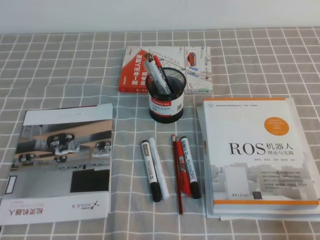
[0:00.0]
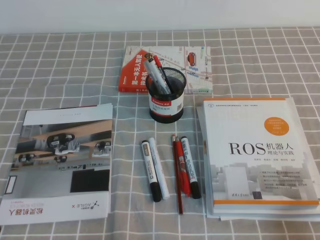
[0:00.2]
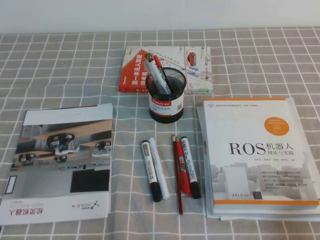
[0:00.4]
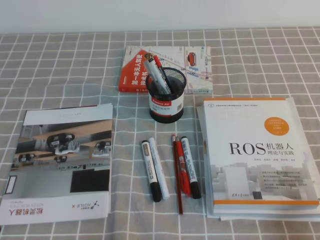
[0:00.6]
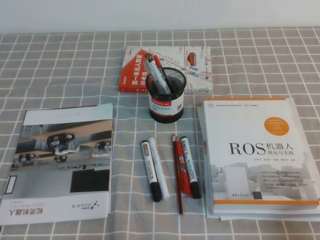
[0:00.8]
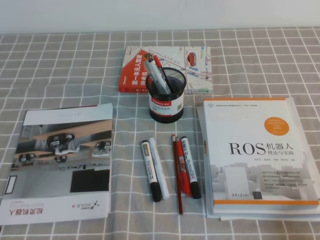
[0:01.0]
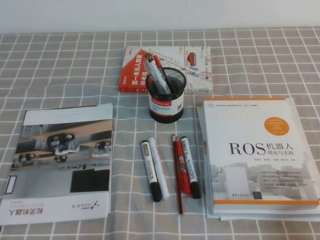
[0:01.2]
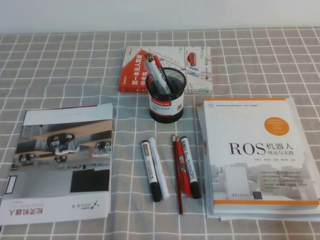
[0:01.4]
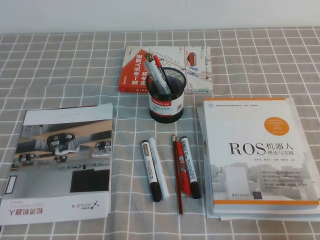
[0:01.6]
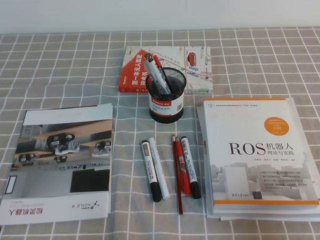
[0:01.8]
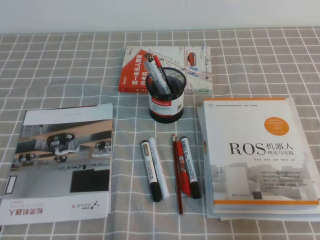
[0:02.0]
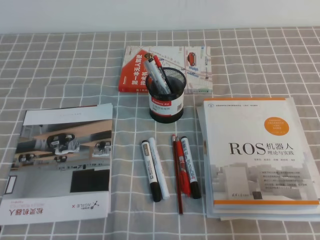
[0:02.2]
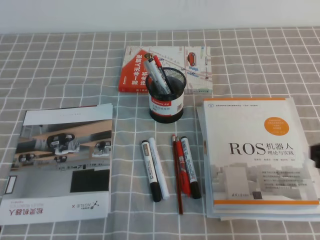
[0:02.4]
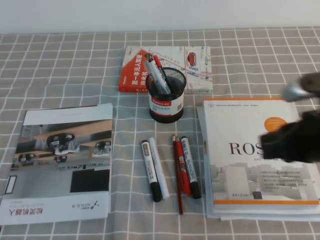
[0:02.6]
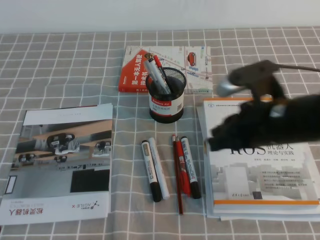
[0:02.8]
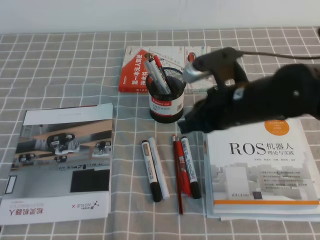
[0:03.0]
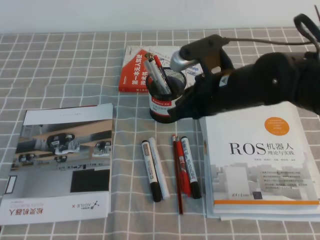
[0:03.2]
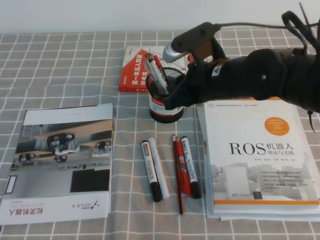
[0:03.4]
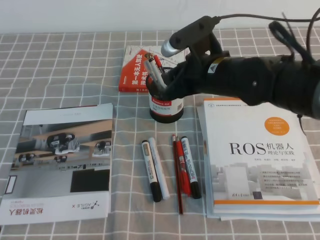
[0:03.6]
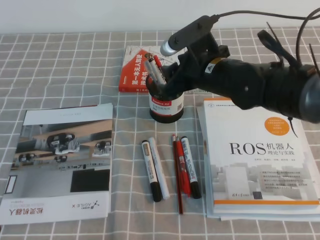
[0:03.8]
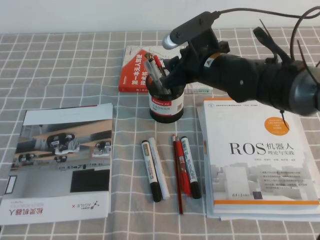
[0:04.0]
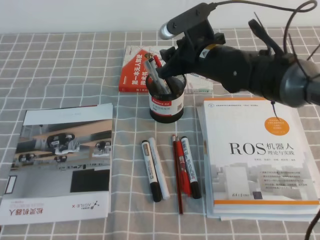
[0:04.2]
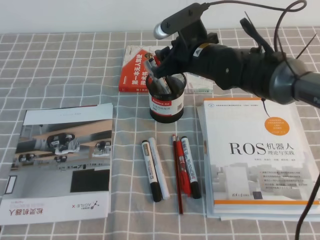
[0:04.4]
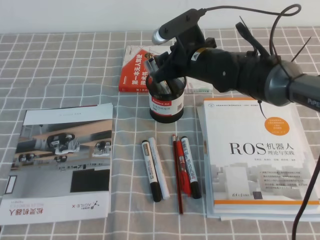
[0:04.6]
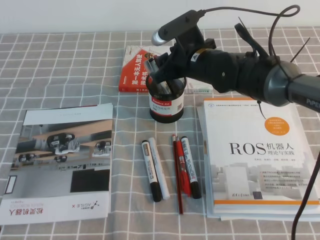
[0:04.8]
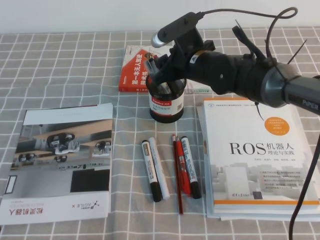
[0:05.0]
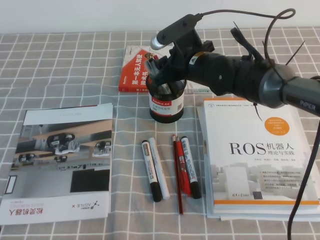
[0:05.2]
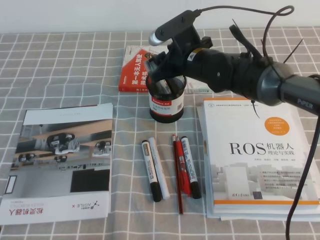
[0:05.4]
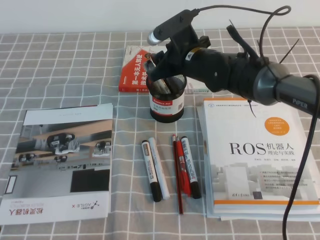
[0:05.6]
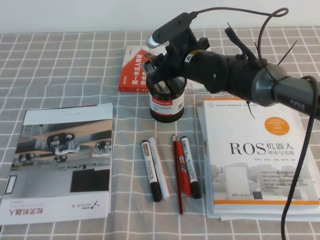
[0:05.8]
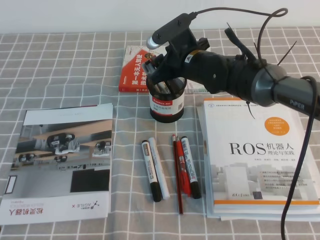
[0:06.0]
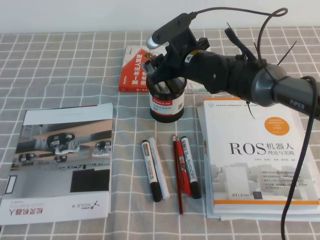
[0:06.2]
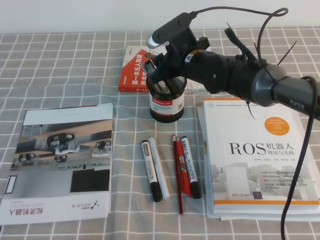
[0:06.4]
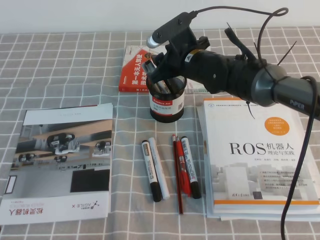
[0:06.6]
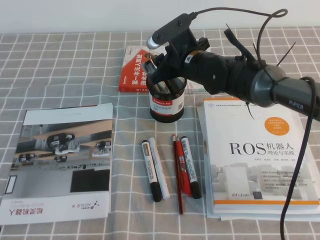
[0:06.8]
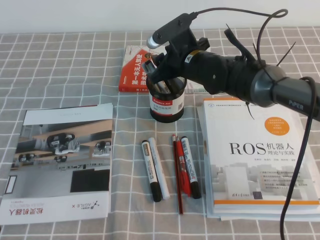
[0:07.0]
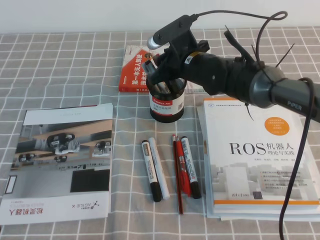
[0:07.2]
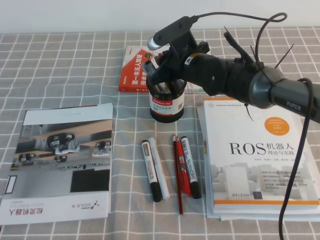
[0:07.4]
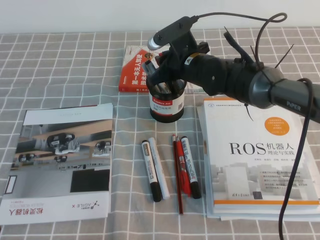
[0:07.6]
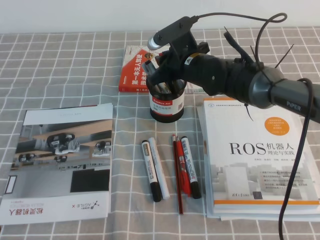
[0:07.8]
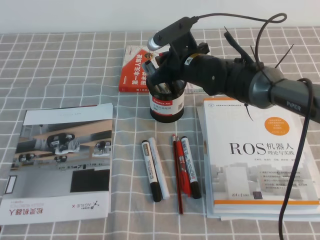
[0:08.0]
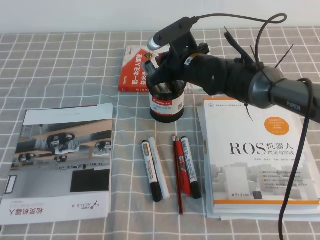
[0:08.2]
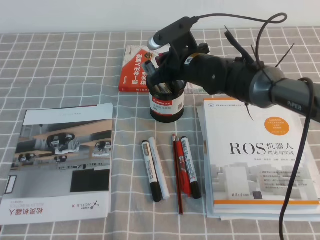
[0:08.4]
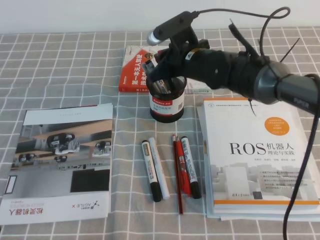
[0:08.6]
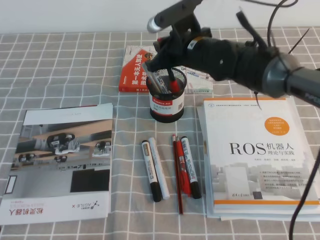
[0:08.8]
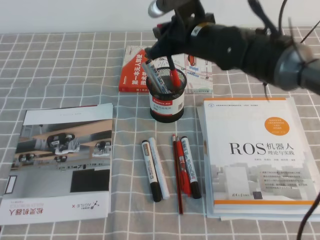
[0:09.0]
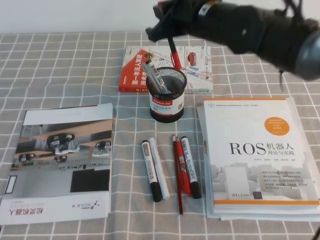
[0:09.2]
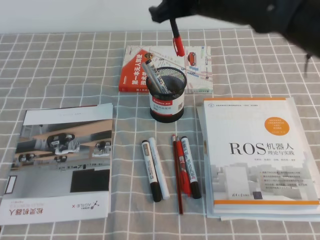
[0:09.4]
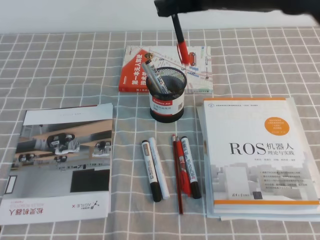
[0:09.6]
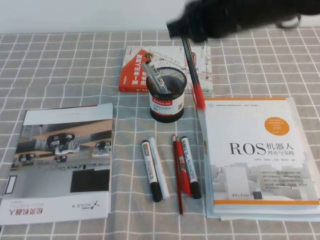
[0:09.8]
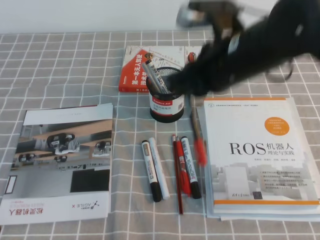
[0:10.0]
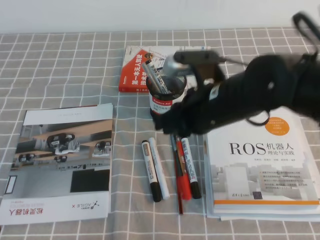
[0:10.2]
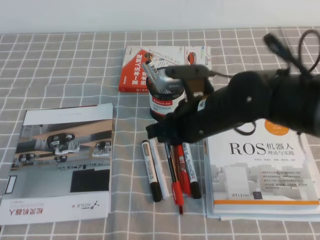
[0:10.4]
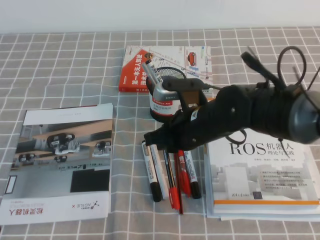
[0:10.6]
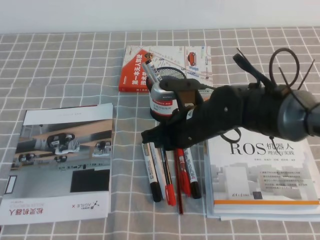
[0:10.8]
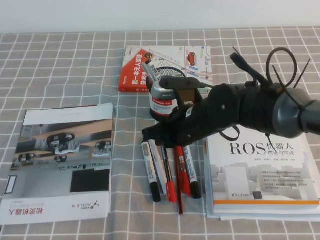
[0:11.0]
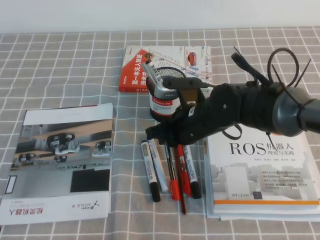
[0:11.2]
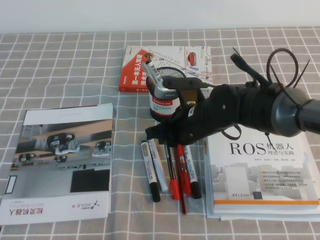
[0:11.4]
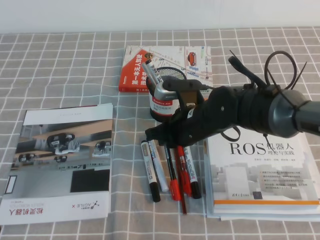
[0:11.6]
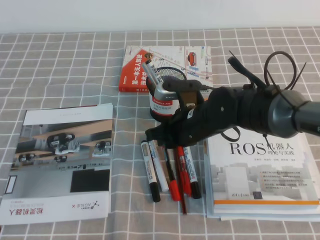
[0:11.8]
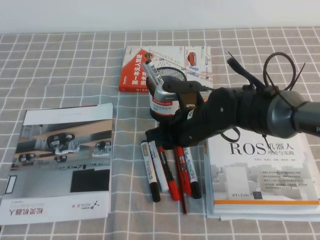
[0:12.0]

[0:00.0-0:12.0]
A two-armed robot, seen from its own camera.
0:01.6 to 0:03.0: The right gripper travels forward and to the left by about 25 cm.
0:03.0 to 0:04.4: The right gripper goes approximately 15 cm forward and to the left, and opens up.
0:04.4 to 0:06.0: There are only small adjustments of the grippers.
0:06.0 to 0:07.6: The right gripper closes.
0:07.6 to 0:09.0: The right gripper heads upward, covering about 5 cm.
0:09.0 to 0:10.4: The right gripper moves backward, roughly 15 cm.
0:10.4 to 0:12.0: The right gripper travels downward by roughly 10 cm, and opens.

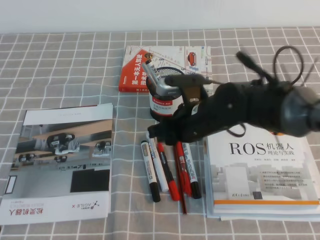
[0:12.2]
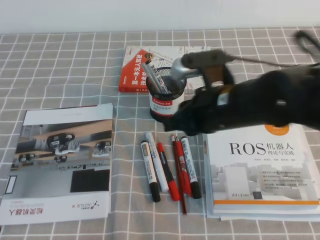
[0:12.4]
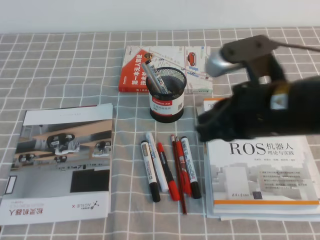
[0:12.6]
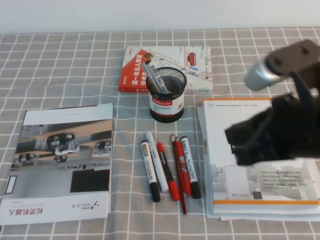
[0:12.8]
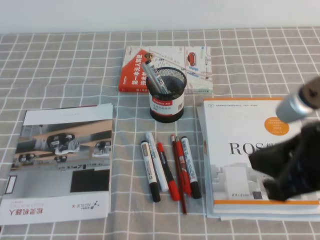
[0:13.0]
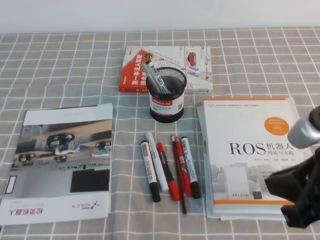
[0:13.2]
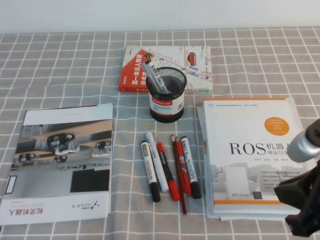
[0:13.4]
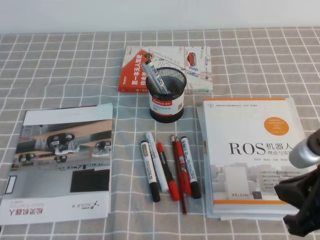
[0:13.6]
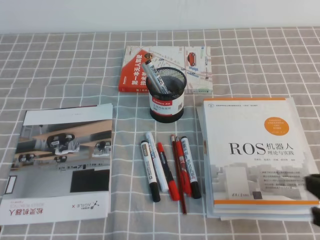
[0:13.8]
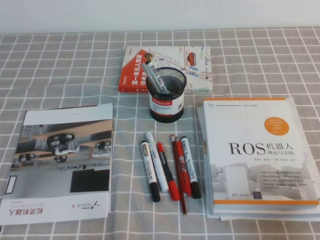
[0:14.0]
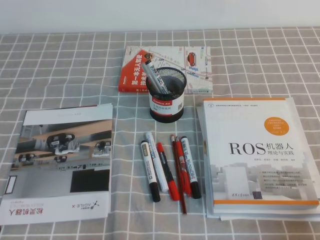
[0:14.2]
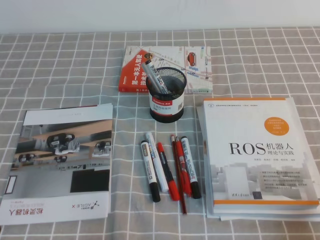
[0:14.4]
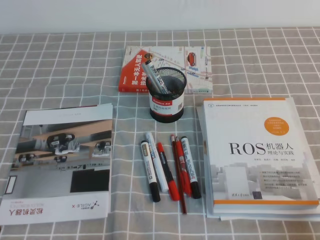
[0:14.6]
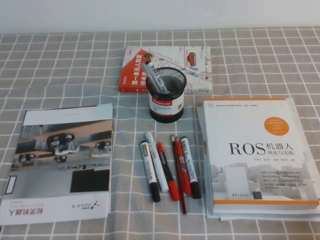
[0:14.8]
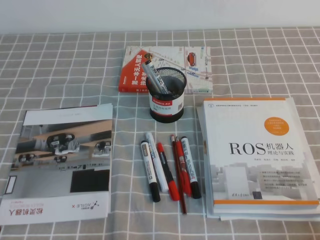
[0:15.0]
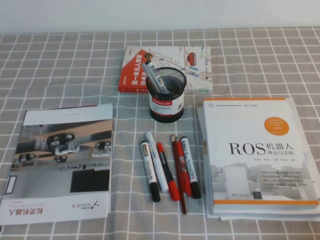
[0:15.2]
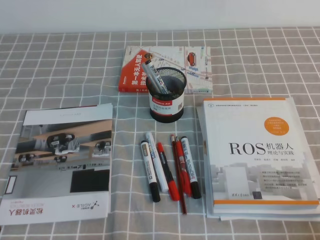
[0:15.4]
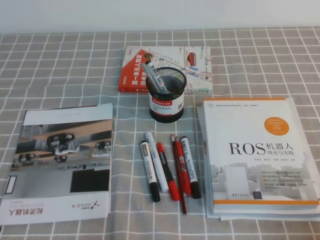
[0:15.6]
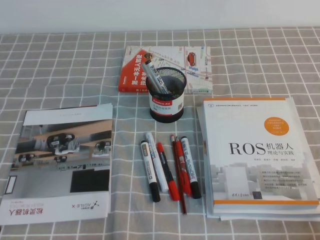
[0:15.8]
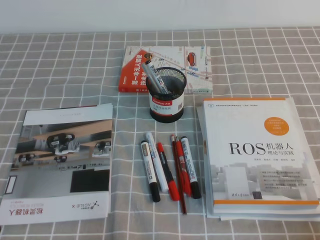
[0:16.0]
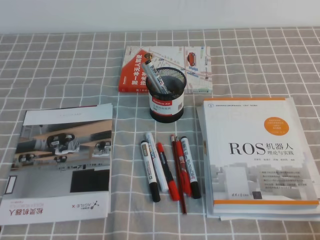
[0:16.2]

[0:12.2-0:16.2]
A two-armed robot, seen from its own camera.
Step, 0:12.2 to 0:16.2: Pick up the pen from the pen holder.
0:12.2 to 0:13.6: The right gripper shifts roughly 25 cm backward, to the right and upward, and closes.
0:13.6 to 0:14.8: The right gripper heads downward, to the right and backward, covering some 20 cm.

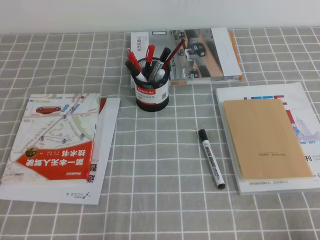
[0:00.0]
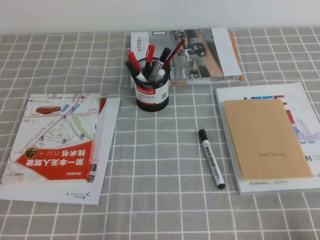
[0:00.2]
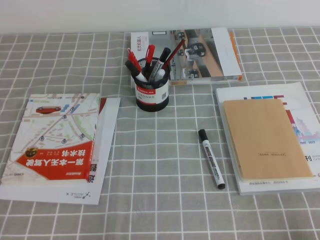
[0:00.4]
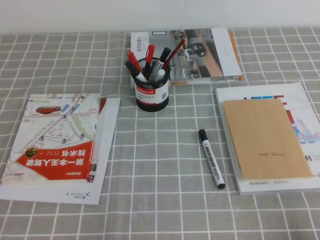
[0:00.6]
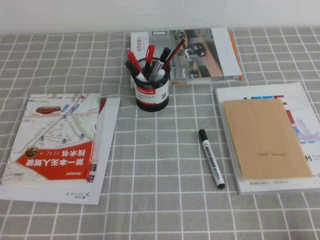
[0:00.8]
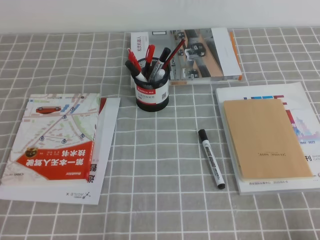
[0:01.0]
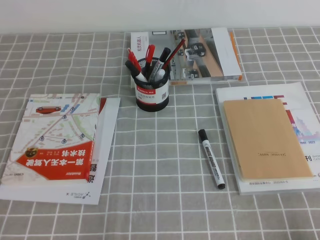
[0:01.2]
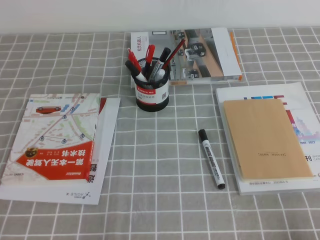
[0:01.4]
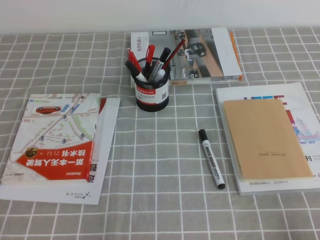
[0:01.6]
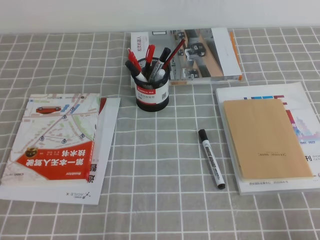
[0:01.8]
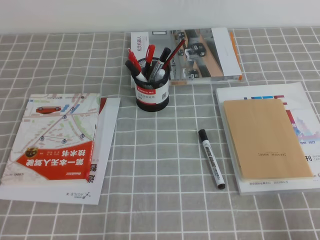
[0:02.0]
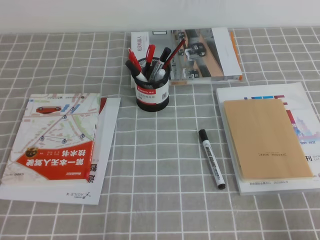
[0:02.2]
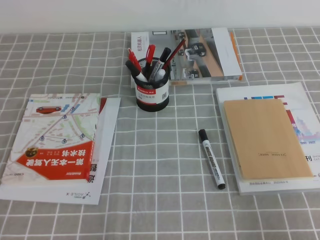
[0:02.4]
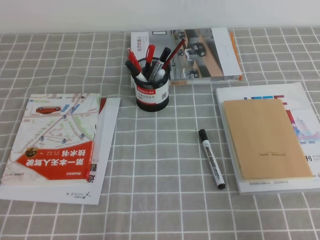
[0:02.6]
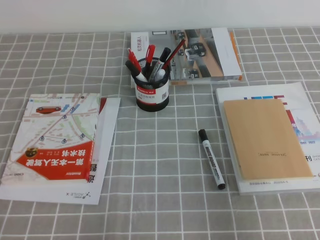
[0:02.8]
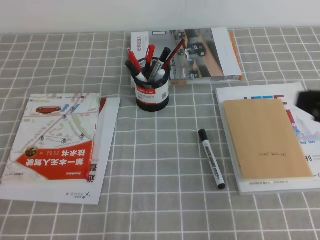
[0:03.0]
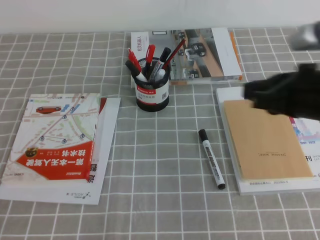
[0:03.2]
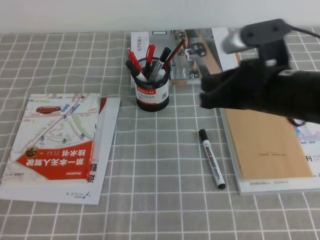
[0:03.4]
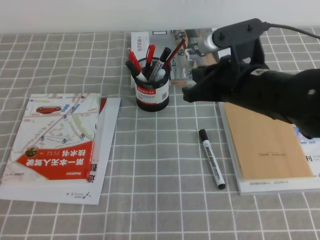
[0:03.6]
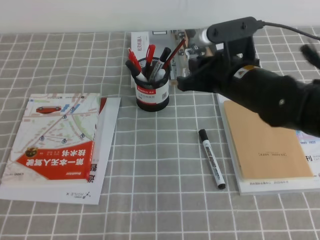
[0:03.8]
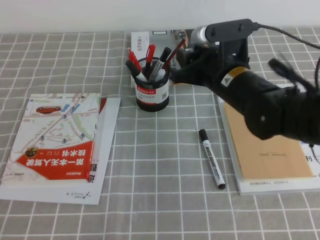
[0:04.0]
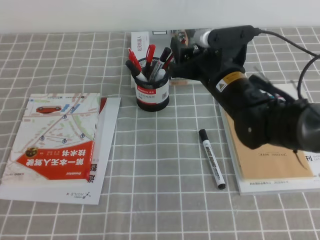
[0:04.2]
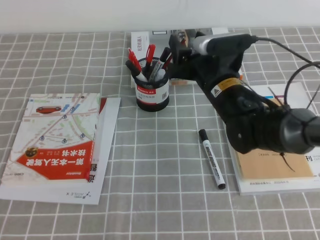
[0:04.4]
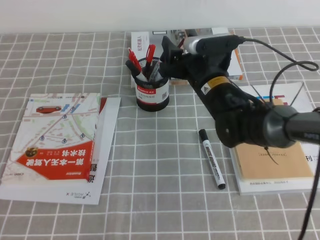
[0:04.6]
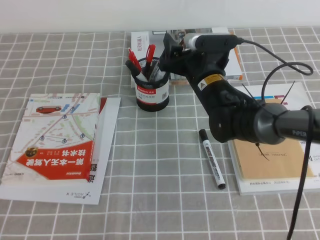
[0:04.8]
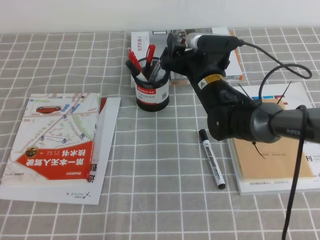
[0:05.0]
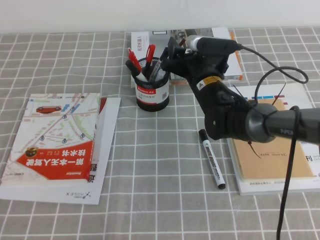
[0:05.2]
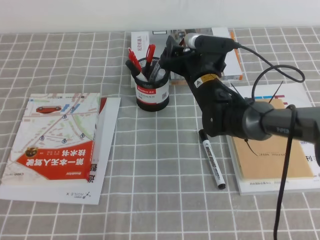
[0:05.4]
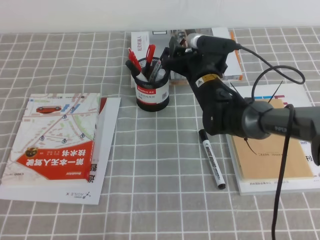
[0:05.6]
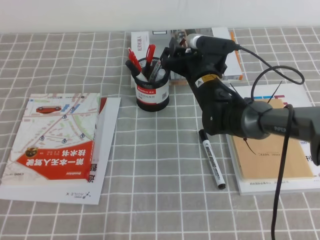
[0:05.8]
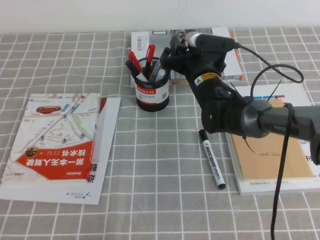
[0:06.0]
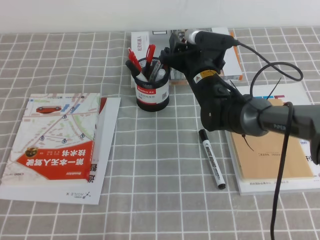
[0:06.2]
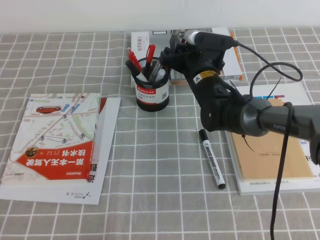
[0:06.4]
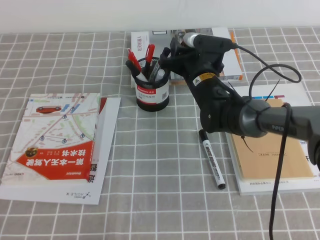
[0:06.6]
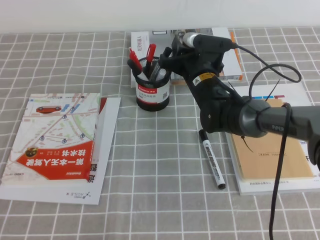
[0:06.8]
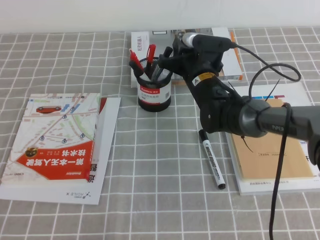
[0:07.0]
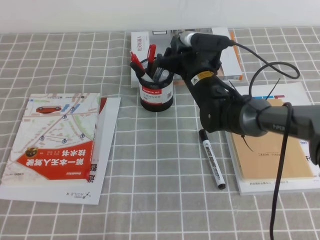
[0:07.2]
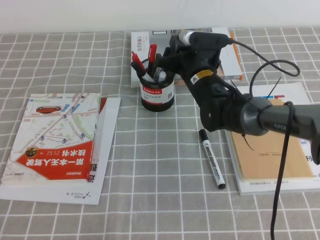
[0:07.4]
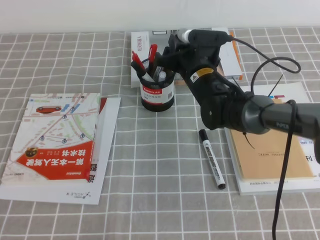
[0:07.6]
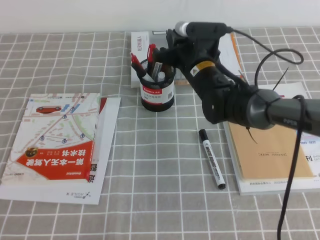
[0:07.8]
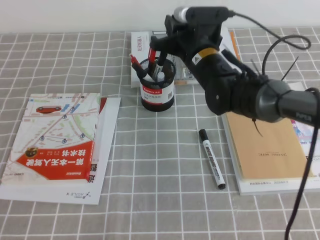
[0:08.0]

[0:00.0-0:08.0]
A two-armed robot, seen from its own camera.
0:01.6 to 0:03.2: The right gripper moves forward, upward and to the left, approximately 25 cm.
0:03.2 to 0:04.8: The right gripper is displaced forward, to the left and downward by about 25 cm, and opens its fingers.
0:04.8 to 0:06.4: The grippers move only a little.
0:06.4 to 0:08.0: The right gripper goes some 5 cm upward, and closes up.
